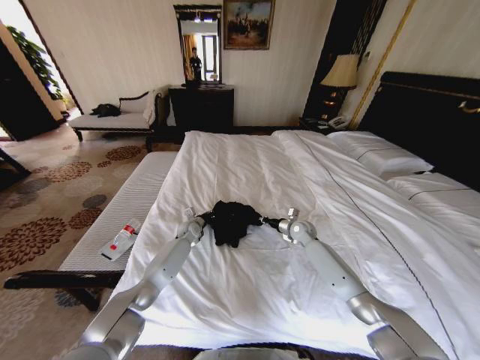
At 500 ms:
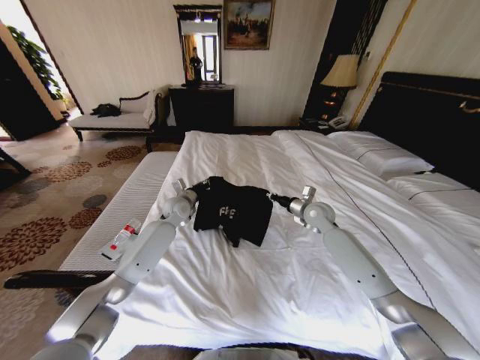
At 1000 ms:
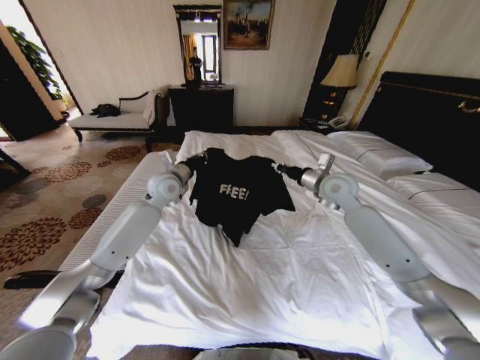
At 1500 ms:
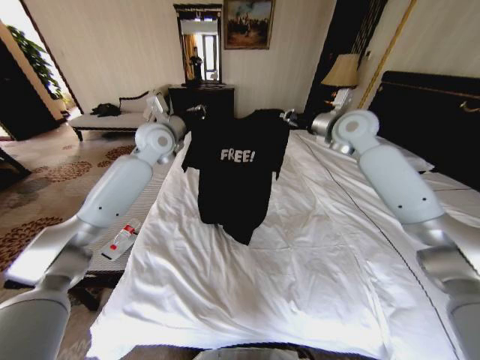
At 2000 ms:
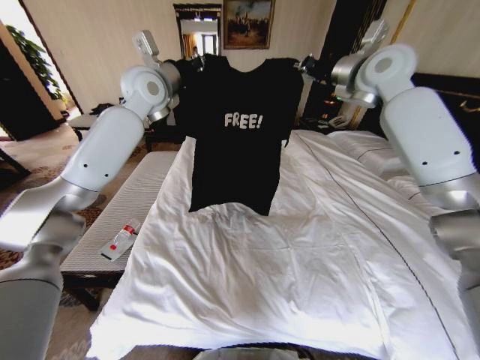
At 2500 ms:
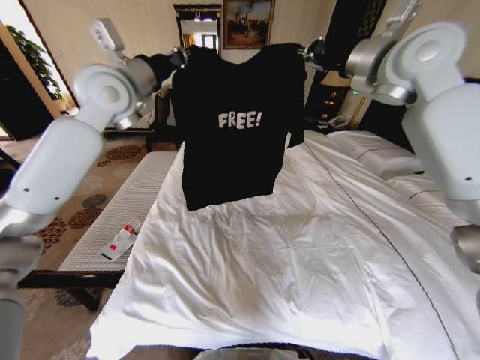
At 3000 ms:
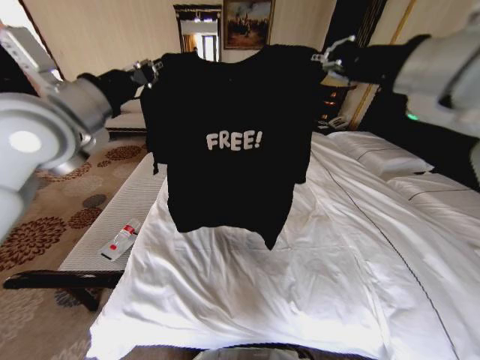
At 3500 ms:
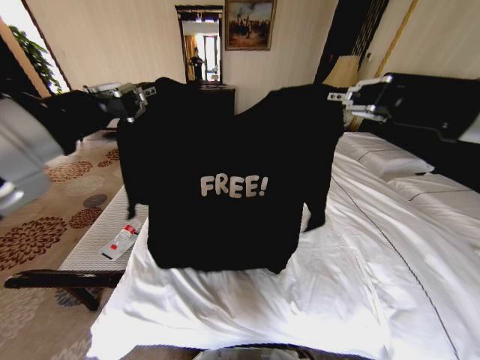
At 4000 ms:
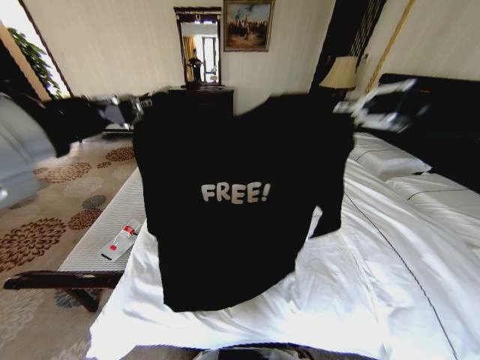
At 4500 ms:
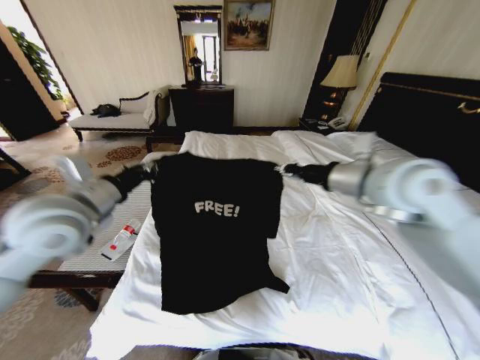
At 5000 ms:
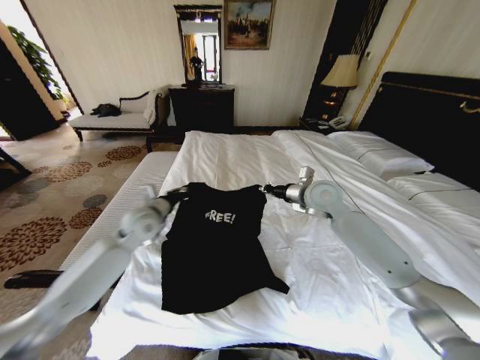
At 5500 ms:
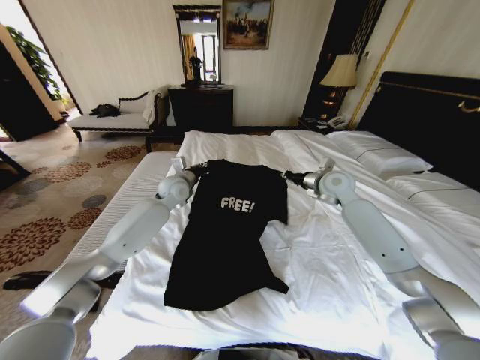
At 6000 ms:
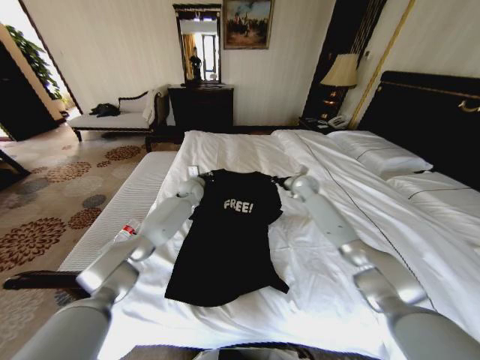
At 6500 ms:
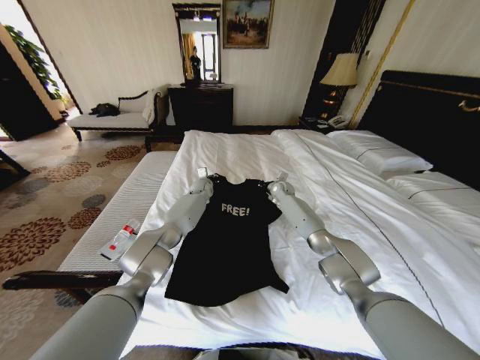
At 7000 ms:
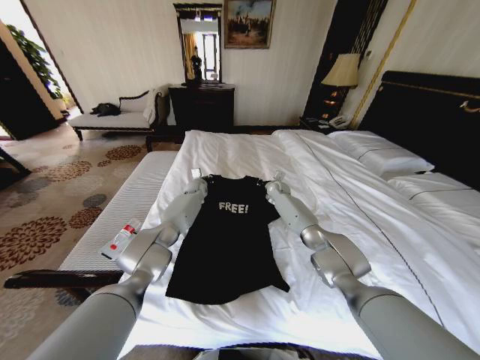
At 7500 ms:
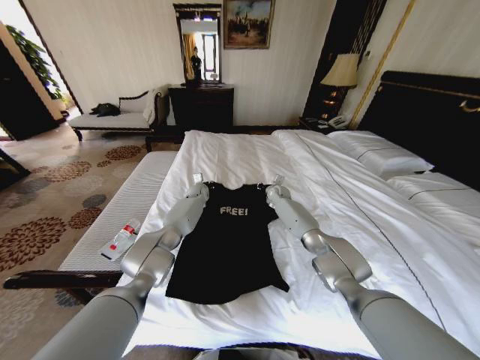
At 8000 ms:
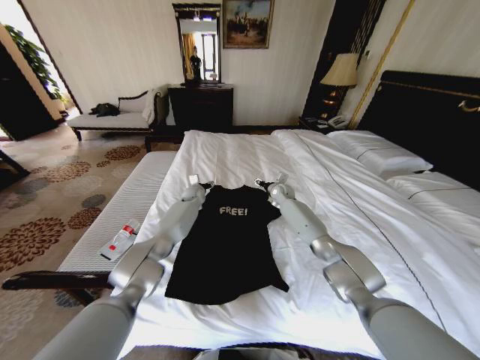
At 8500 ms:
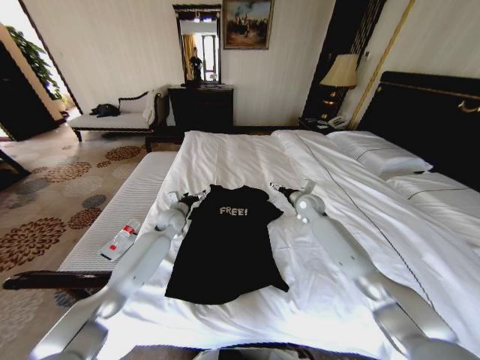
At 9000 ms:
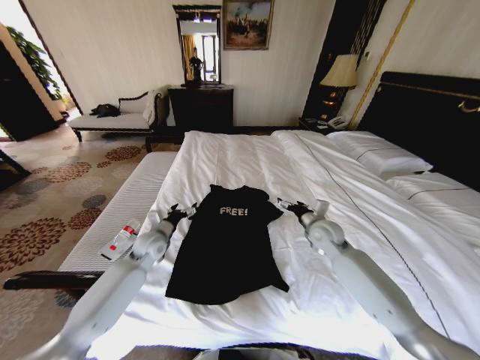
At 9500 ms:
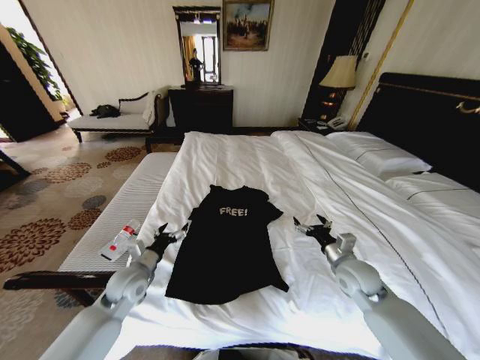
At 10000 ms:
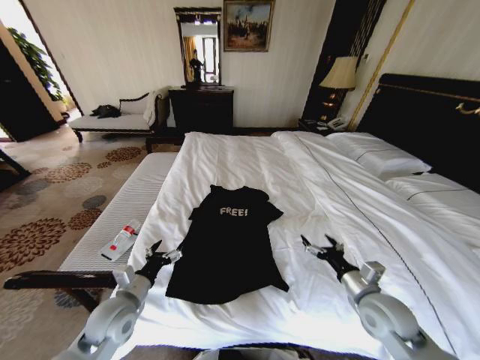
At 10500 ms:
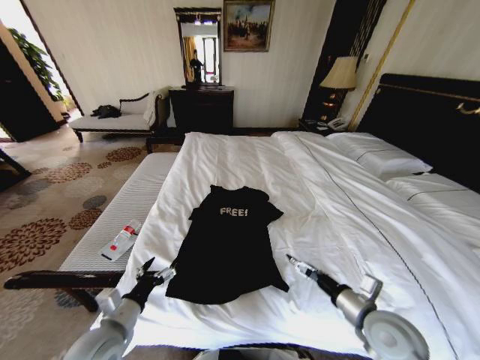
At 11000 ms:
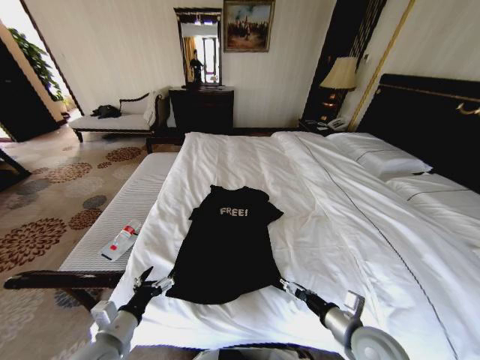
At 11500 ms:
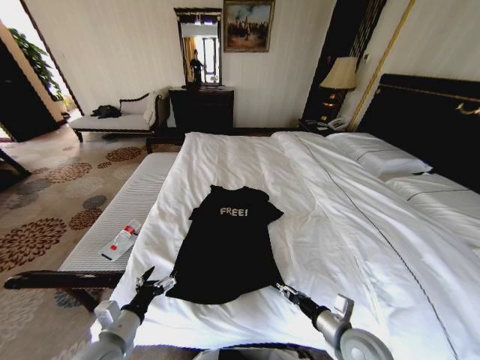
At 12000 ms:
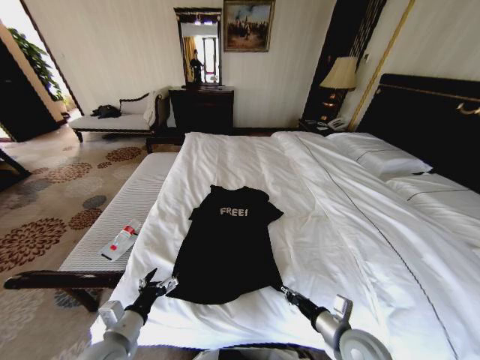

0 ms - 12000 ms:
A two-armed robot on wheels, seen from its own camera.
Task of the whole recording: Fold the clothes on the bed.
0 ms - 2000 ms: Both grippers move upward, roughly 50 cm.
2000 ms - 4000 ms: Both grippers travel together backward, approximately 35 cm.
4000 ms - 6000 ms: Both grippers move forward and downward, some 50 cm.
6000 ms - 8000 ms: The right gripper is displaced to the left and downward by about 10 cm, and opens; the left gripper heads downward, covering roughly 5 cm, and opens.
8000 ms - 10000 ms: Both grippers move backward, about 40 cm.
10000 ms - 12000 ms: The left gripper shifts roughly 10 cm backward, while the right gripper is displaced backward and to the left by some 10 cm, and closes up.

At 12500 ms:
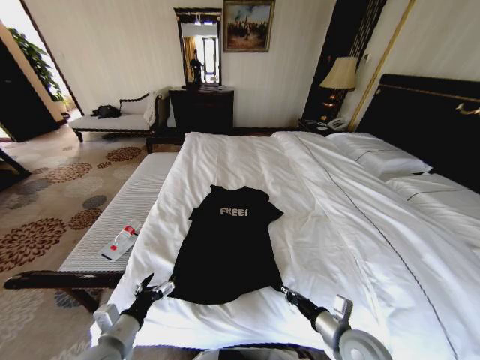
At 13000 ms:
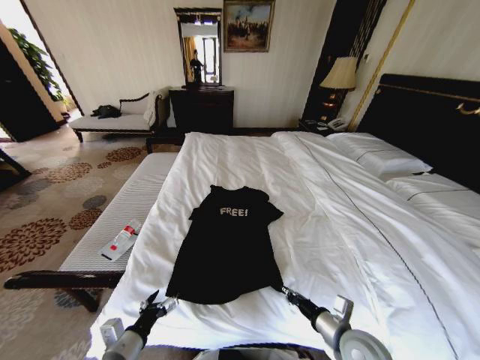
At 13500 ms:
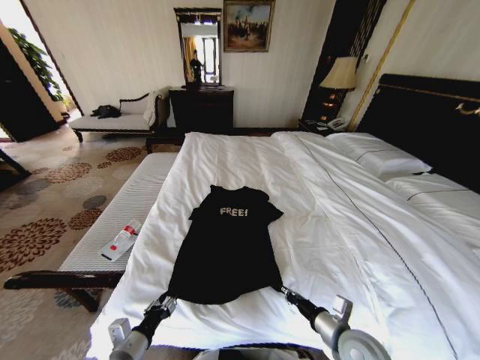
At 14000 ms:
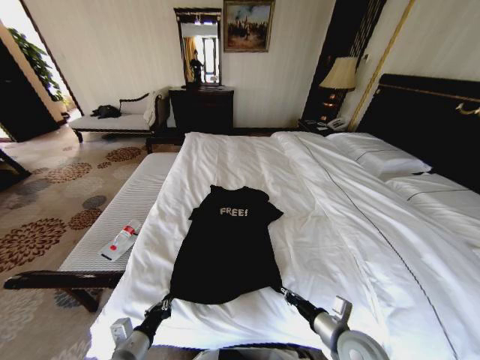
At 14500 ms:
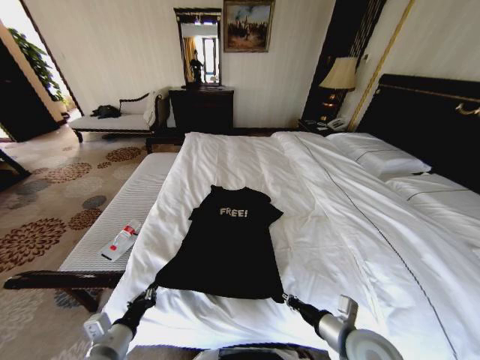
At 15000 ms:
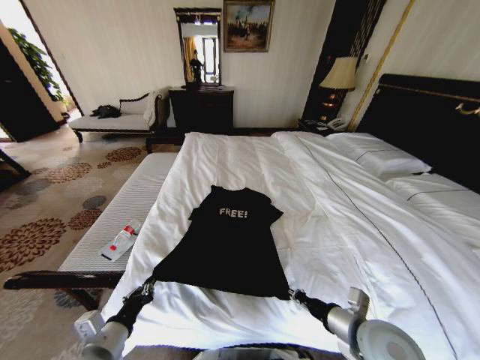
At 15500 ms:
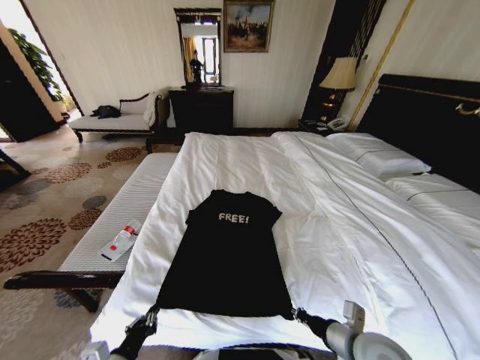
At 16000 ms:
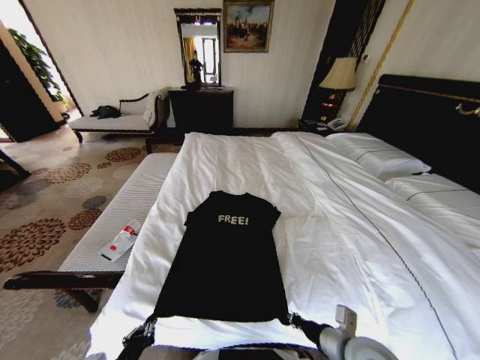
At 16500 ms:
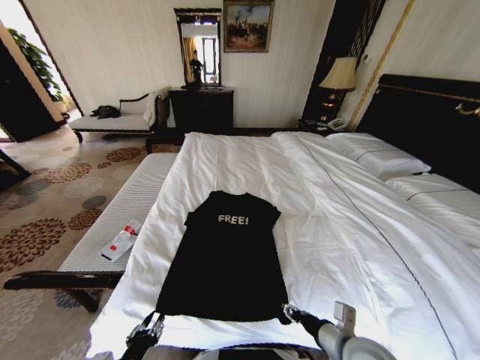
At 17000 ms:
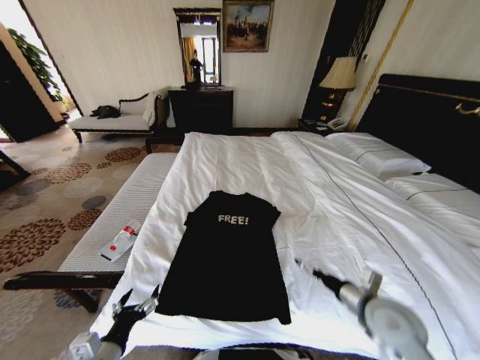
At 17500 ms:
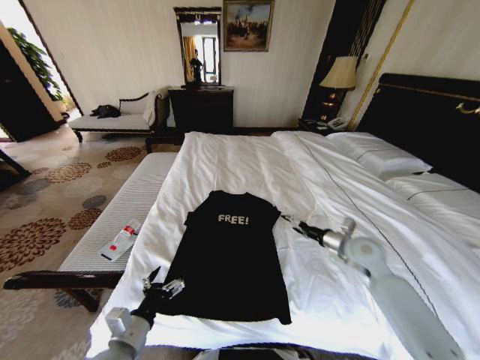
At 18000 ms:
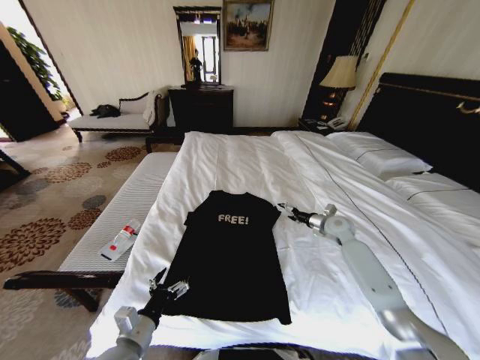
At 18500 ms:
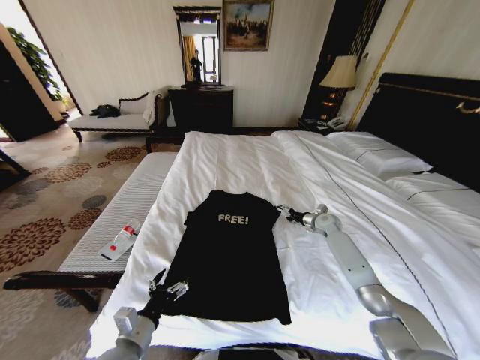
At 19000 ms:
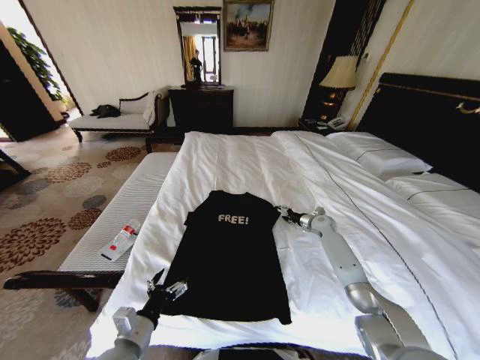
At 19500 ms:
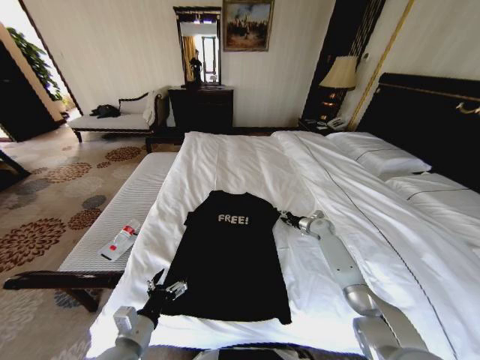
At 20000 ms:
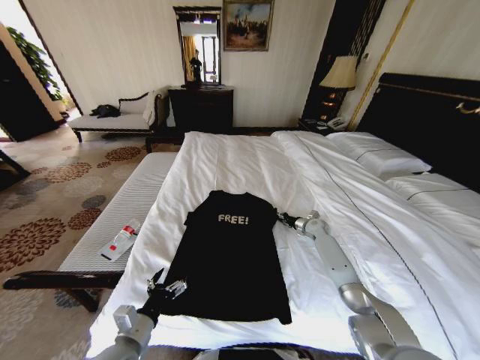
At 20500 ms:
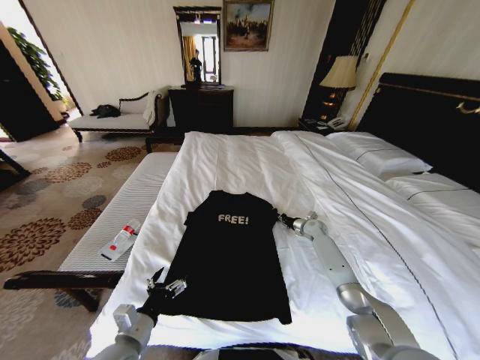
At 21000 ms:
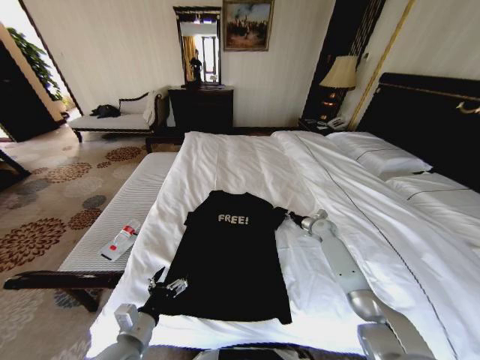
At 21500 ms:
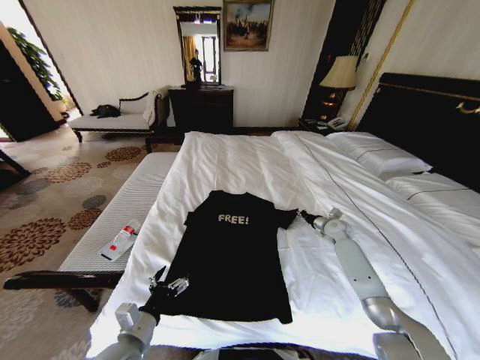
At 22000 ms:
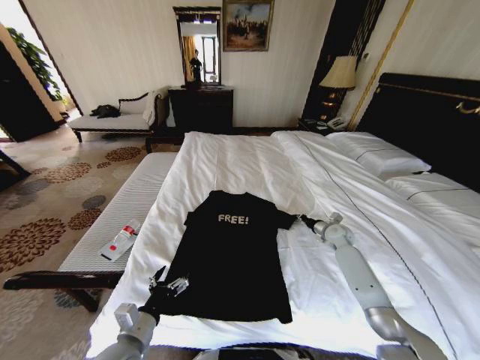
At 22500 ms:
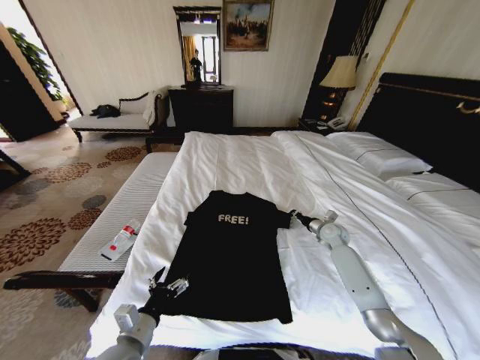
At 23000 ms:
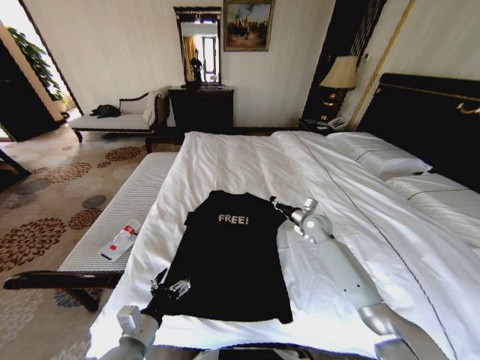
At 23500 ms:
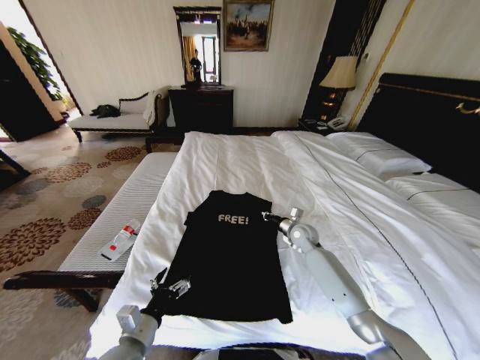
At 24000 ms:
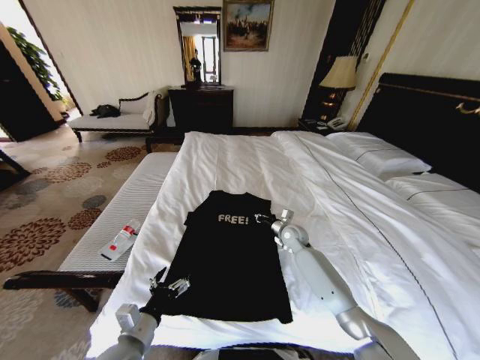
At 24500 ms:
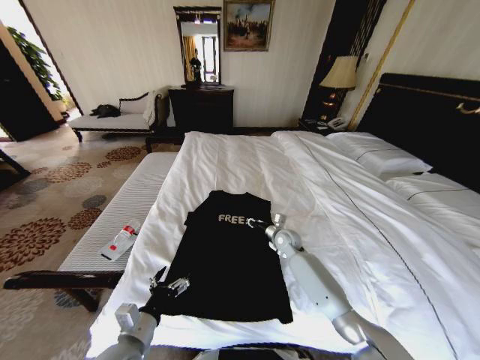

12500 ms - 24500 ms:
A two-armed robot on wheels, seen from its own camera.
Task of the whole recording: Fold the clothes on the bed.
12500 ms - 14500 ms: The left gripper closes.
14500 ms - 16500 ms: The left gripper goes approximately 5 cm backward, and opens up. Meanwhile the right gripper opens its fingers.
16500 ms - 18500 ms: The right gripper travels forward by some 40 cm, and opens. The left gripper travels forward by some 10 cm, and opens up.
18500 ms - 20500 ms: The right gripper ends up some 5 cm from where it was, and closes its fingers.
20500 ms - 22500 ms: The right gripper shifts some 5 cm backward.
22500 ms - 24500 ms: The right gripper goes roughly 20 cm to the left.

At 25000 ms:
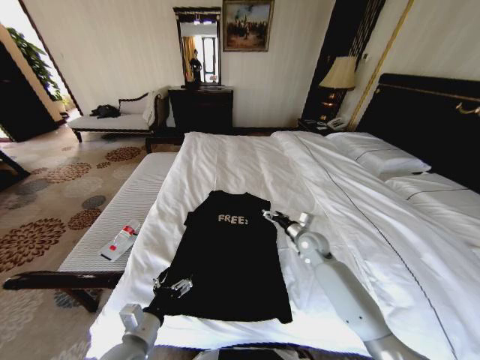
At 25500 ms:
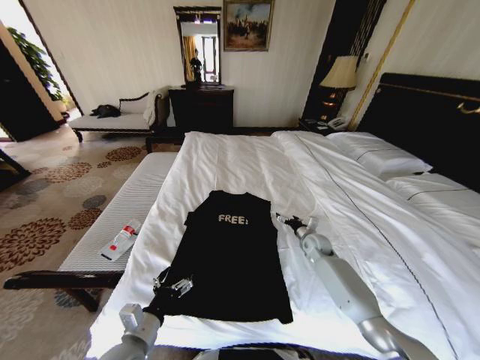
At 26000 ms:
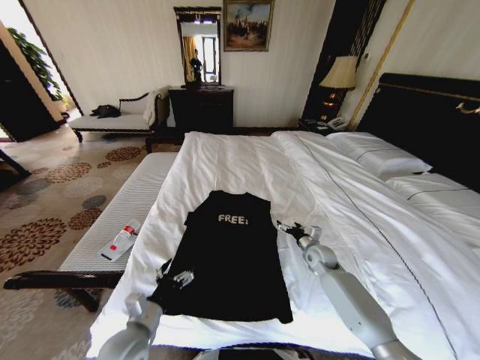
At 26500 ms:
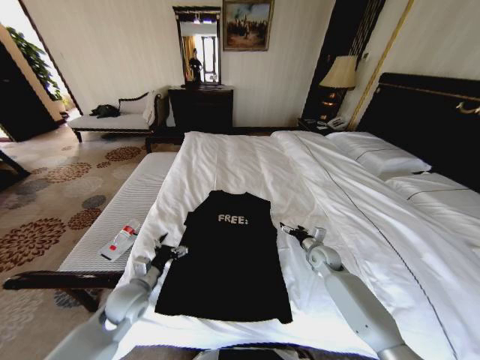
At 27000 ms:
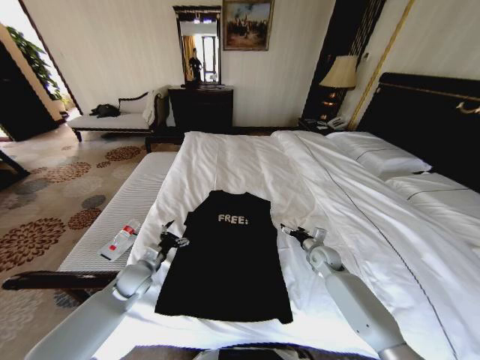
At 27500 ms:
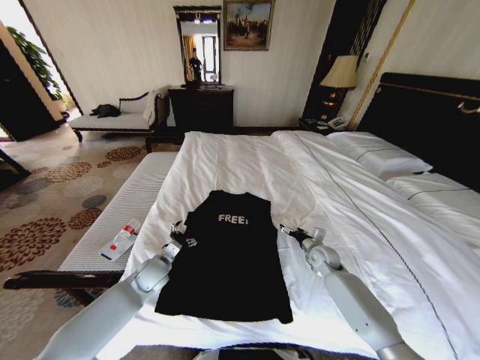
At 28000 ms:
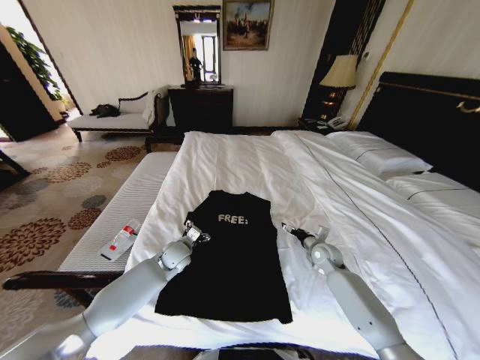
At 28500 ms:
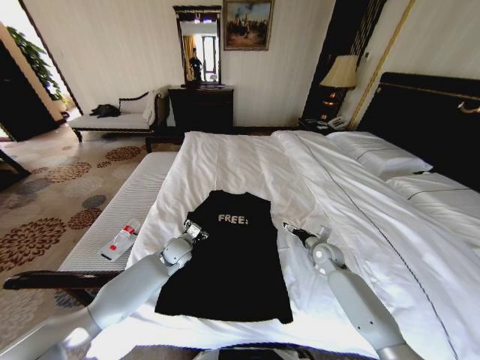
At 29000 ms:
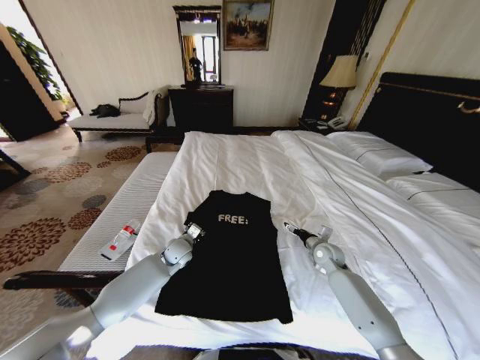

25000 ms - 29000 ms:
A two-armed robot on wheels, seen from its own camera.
Task of the whole recording: Fold the clothes on the bed.
25000 ms - 27000 ms: The right gripper heads downward and to the right, covering approximately 10 cm. Meanwhile the left gripper travels forward by some 20 cm.
27000 ms - 29000 ms: The left gripper goes roughly 15 cm to the right and forward, and closes its fingers.
